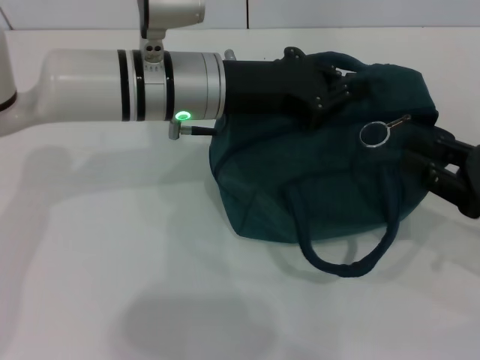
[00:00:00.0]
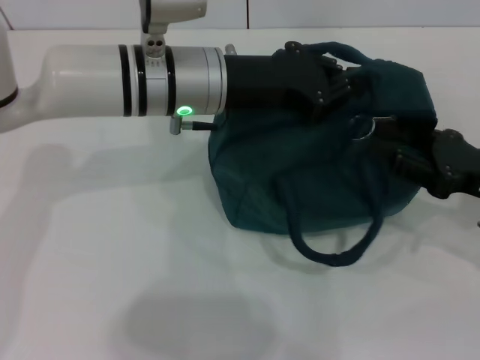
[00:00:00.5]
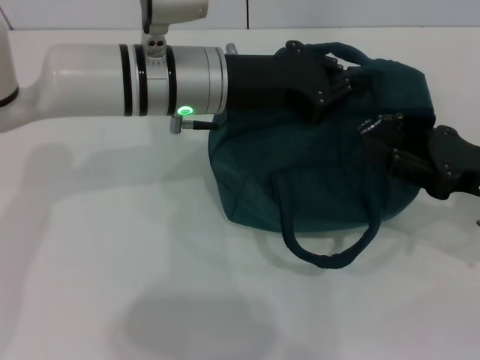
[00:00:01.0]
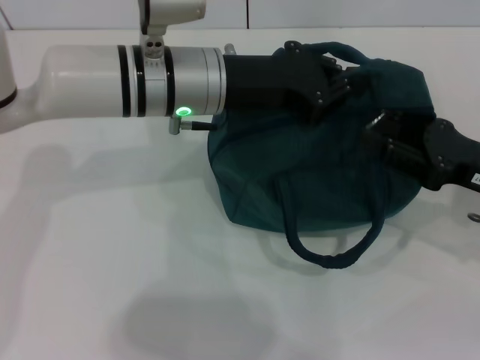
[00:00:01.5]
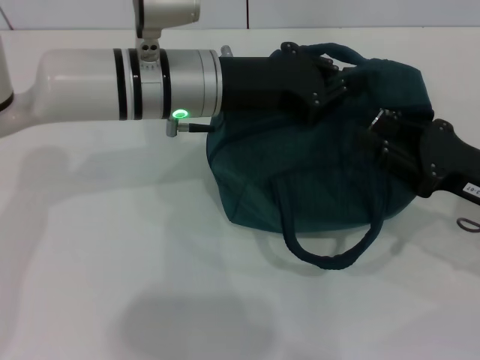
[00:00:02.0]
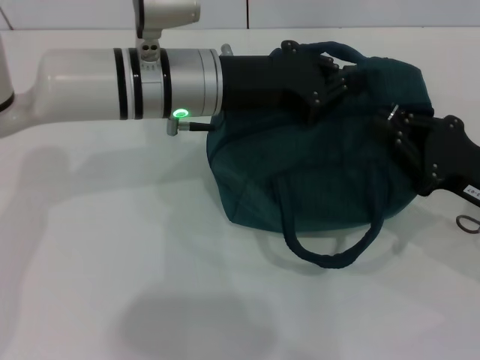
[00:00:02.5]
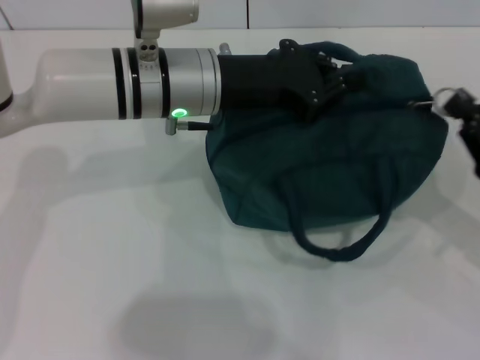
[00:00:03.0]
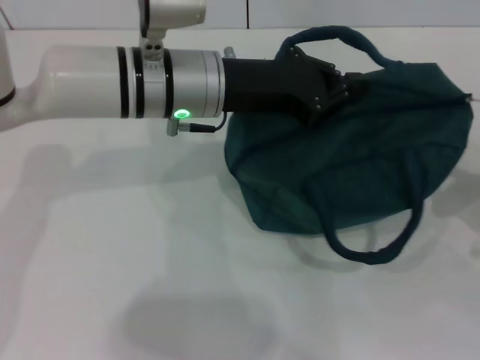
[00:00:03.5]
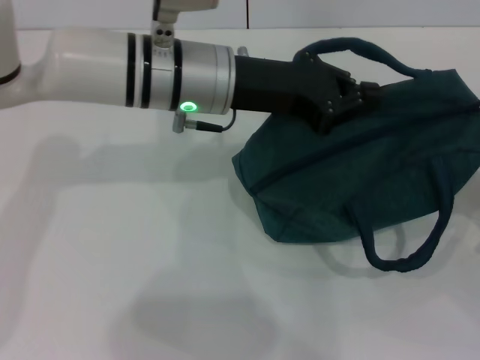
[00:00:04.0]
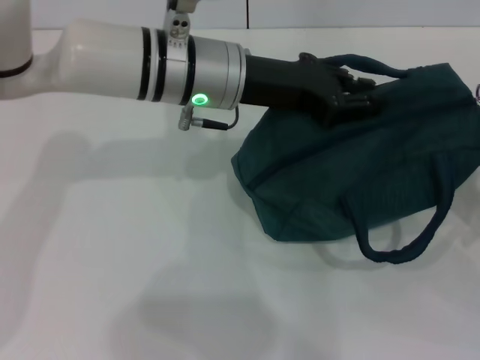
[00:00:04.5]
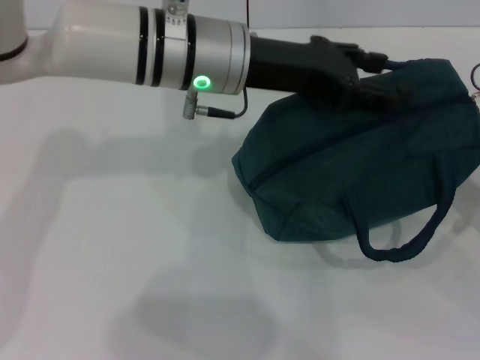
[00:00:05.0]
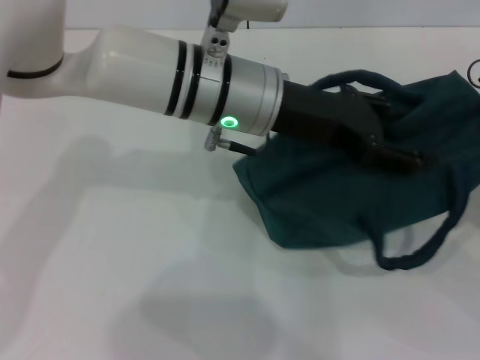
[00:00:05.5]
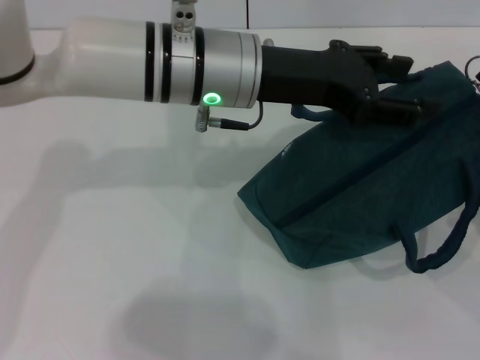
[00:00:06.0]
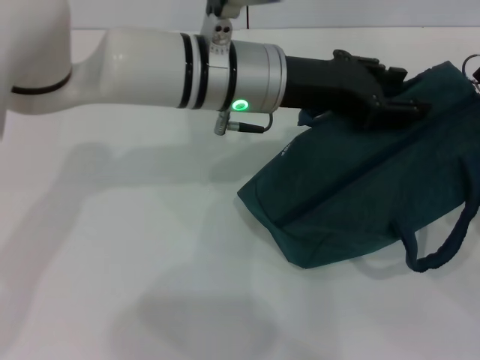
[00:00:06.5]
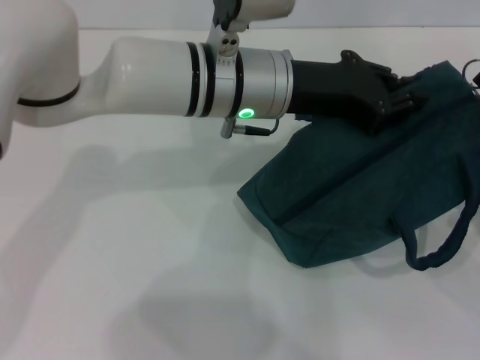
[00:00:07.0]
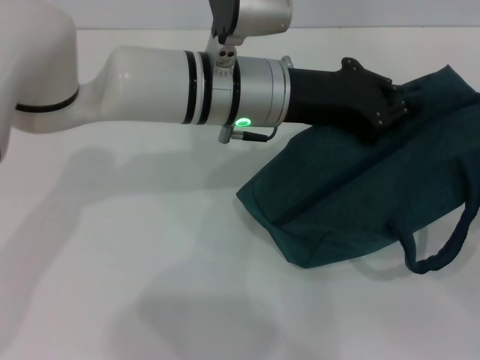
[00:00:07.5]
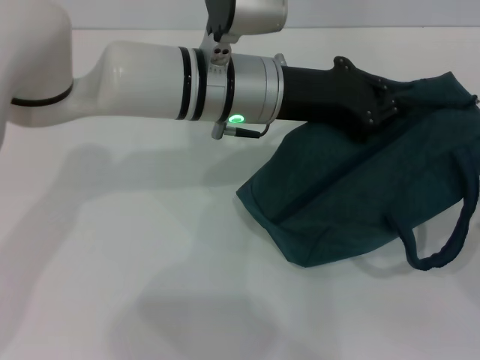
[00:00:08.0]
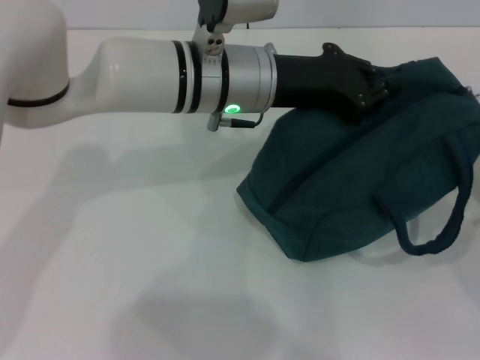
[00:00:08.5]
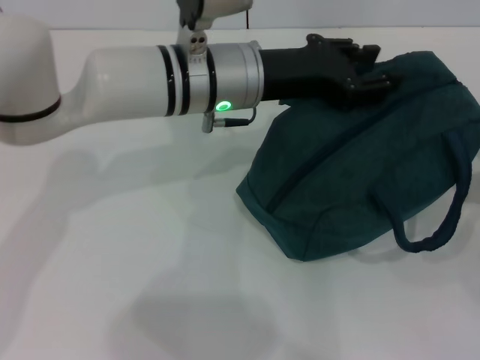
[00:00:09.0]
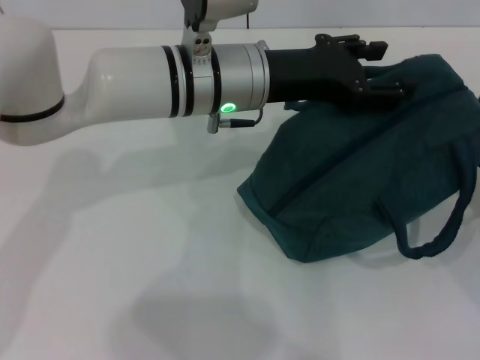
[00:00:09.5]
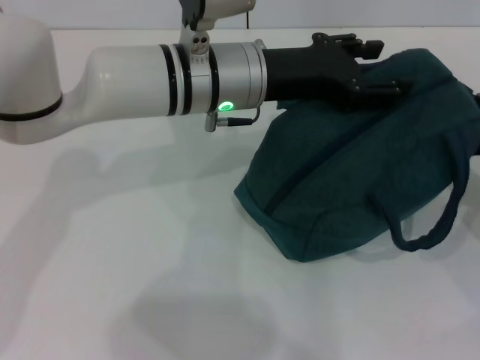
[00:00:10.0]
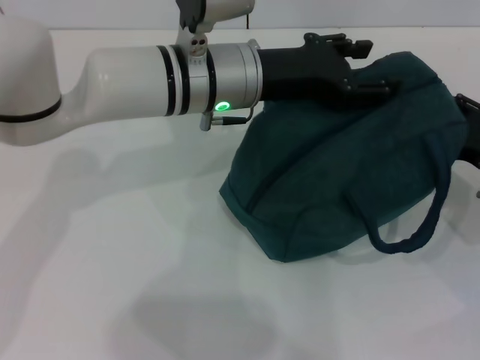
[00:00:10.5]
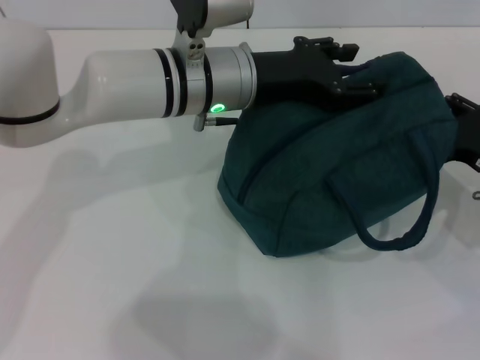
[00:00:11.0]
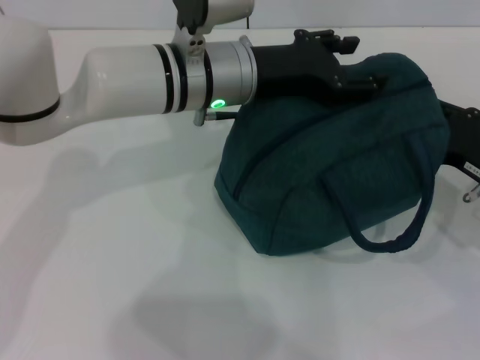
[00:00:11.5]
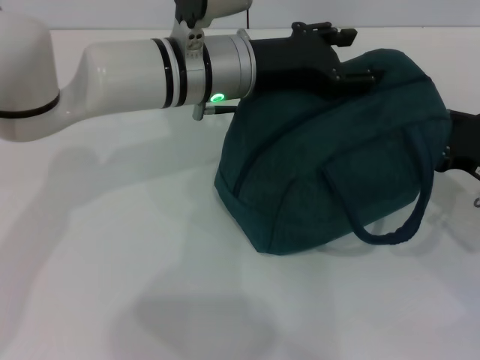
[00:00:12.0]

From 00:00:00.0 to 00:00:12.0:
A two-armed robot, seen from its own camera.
Step, from 00:00:00.0 to 00:00:09.0: Hold the lunch bag with your left hand.
From 00:00:00.0 to 00:00:02.0: The grippers make only small movements.
From 00:00:02.0 to 00:00:04.0: The right gripper heads to the right, covering some 10 cm.
From 00:00:04.0 to 00:00:06.0: The left gripper opens its fingers.
From 00:00:06.0 to 00:00:08.0: The left gripper closes.
From 00:00:08.0 to 00:00:10.0: The left gripper opens; the right gripper opens its fingers.
From 00:00:10.0 to 00:00:12.0: The right gripper closes up.

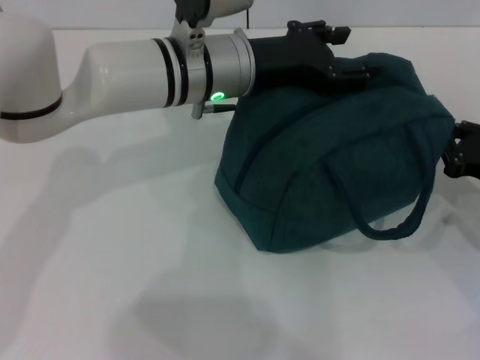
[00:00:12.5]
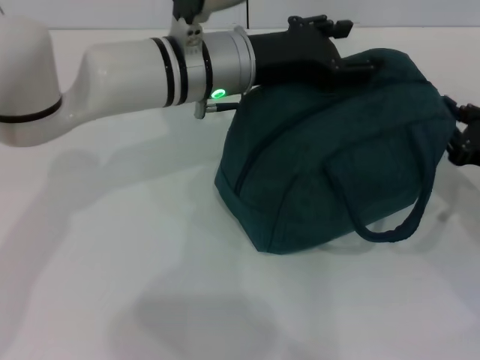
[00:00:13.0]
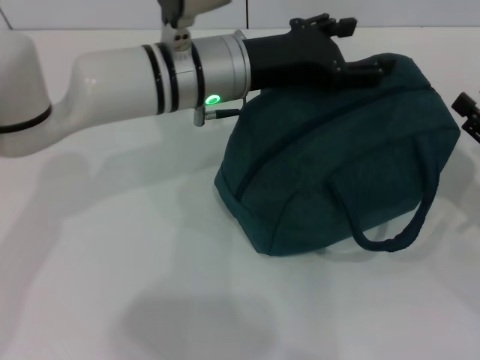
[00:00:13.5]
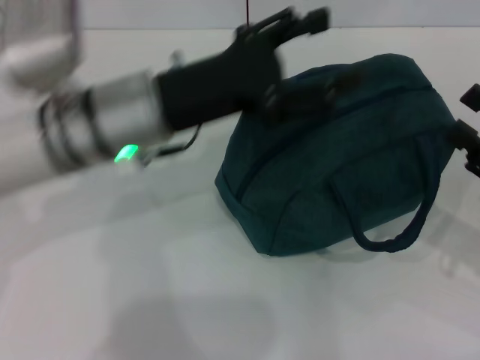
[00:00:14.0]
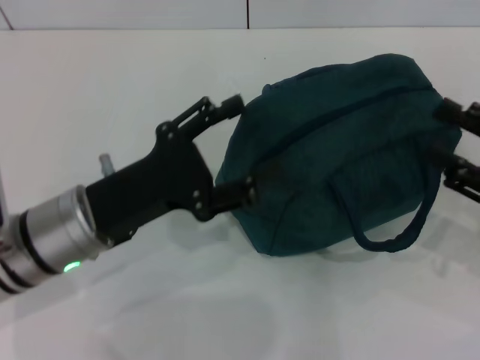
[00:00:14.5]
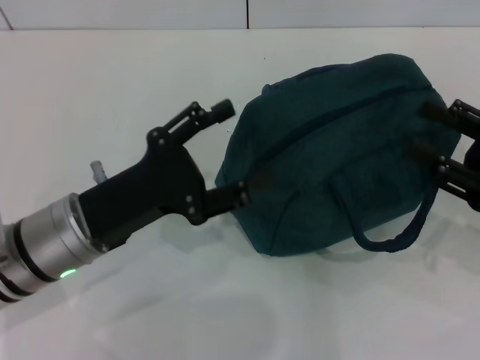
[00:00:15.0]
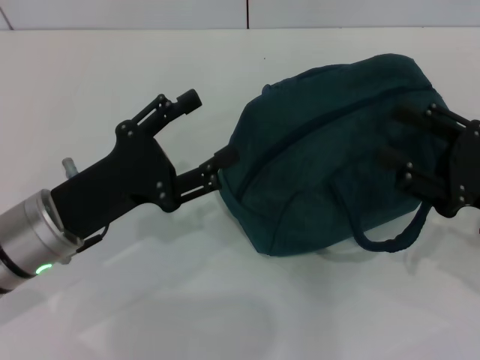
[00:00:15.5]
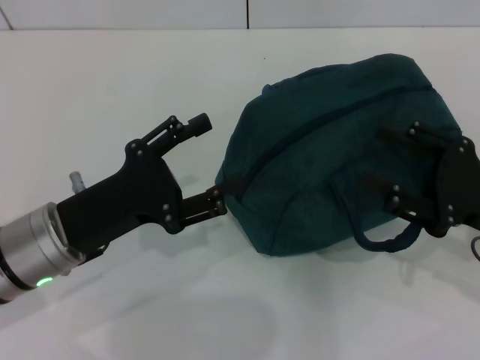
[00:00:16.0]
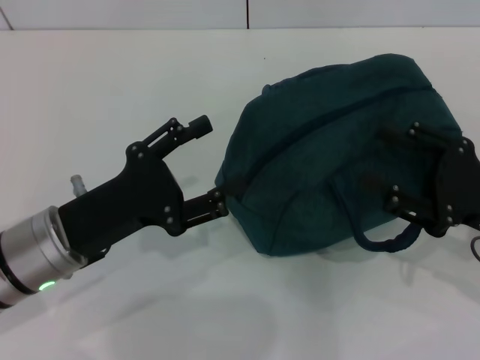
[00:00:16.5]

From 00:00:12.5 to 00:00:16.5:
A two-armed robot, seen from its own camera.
From 00:00:12.5 to 00:00:14.5: The left gripper heads backward, to the left and downward, covering some 20 cm, while the right gripper heads upward, covering roughly 5 cm, and opens its fingers.
From 00:00:14.5 to 00:00:16.5: The grippers move only a little.
